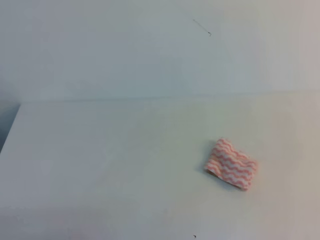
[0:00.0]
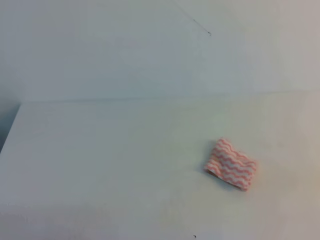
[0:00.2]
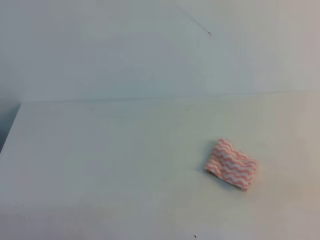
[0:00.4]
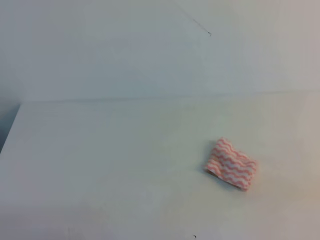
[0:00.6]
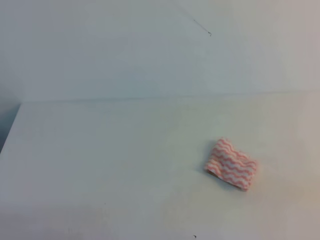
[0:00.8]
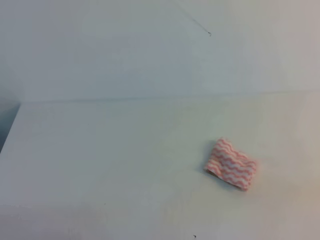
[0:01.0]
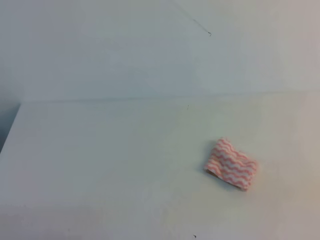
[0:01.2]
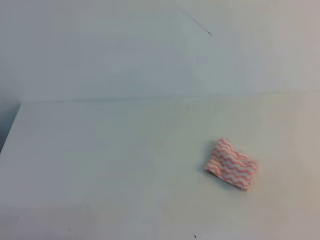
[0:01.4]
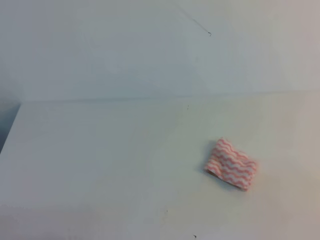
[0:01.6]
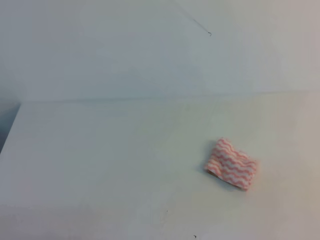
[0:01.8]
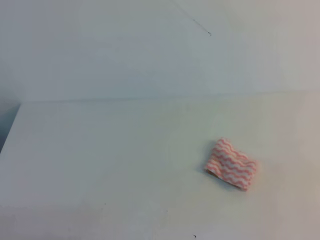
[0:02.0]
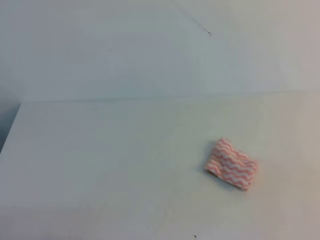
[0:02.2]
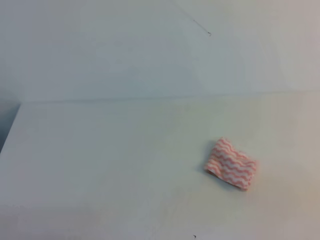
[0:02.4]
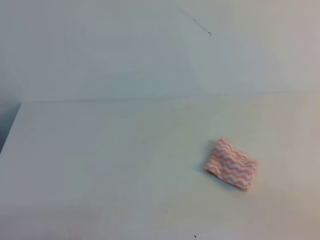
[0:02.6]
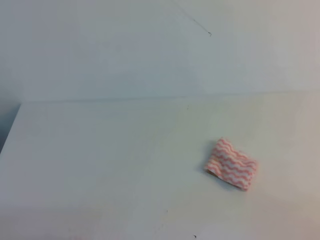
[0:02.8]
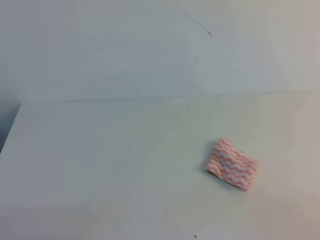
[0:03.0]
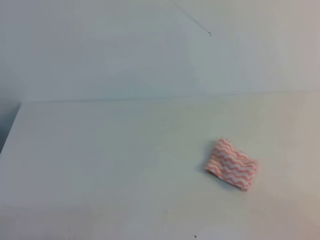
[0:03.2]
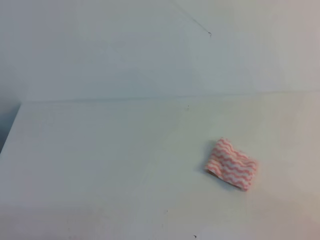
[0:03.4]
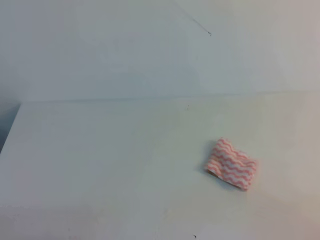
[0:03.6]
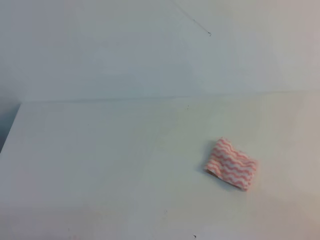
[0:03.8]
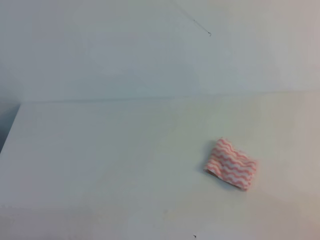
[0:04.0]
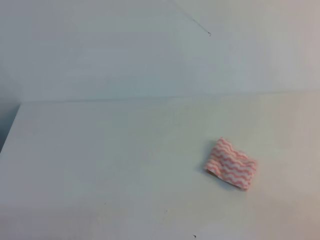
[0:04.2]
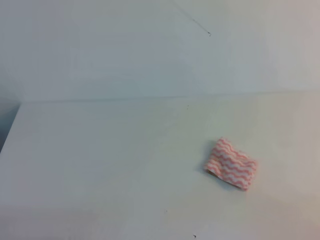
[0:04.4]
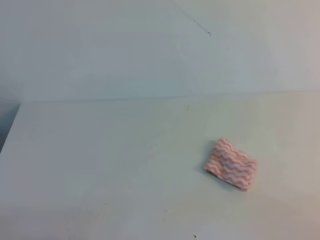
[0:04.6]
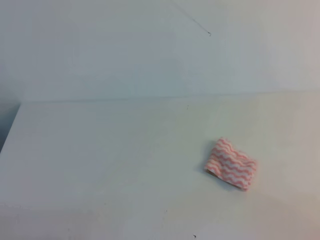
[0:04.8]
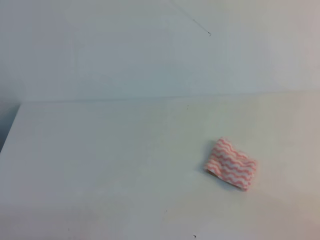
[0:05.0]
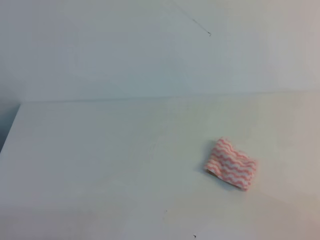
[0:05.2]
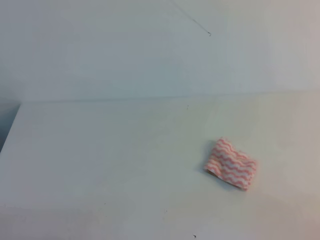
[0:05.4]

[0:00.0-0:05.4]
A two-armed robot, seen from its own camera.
0:02.8 to 0:05.4: Both grippers stay put.
